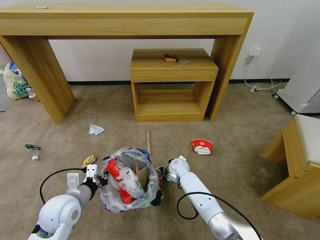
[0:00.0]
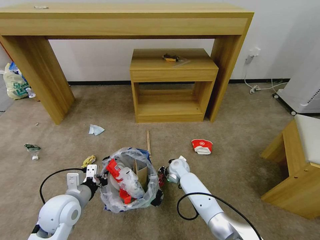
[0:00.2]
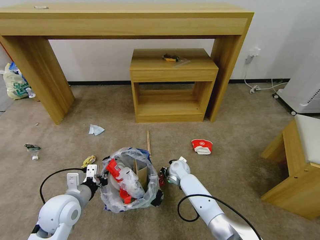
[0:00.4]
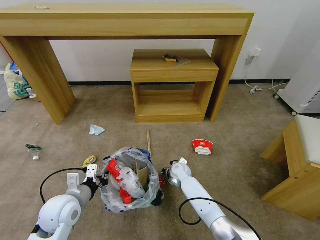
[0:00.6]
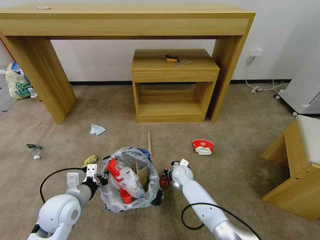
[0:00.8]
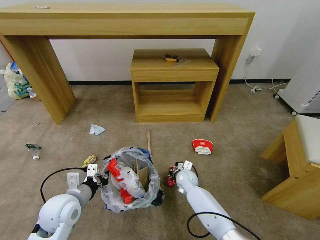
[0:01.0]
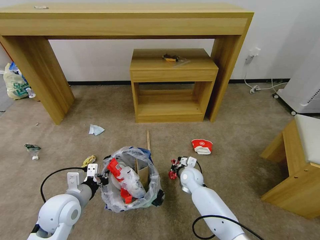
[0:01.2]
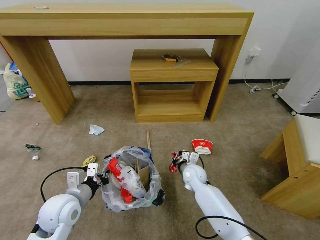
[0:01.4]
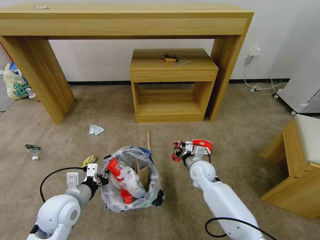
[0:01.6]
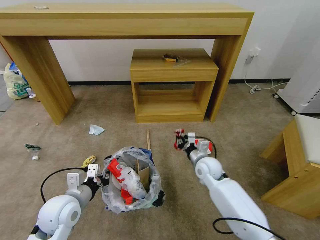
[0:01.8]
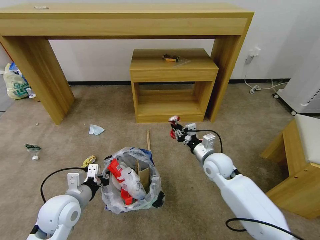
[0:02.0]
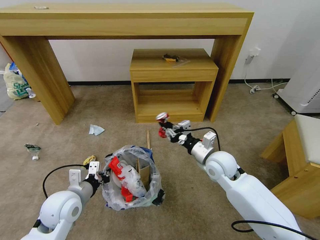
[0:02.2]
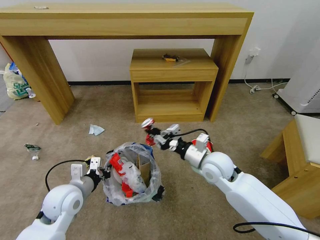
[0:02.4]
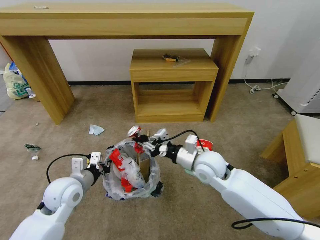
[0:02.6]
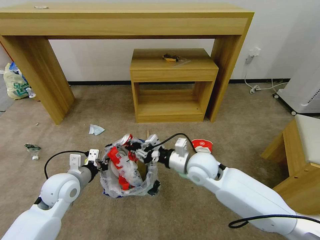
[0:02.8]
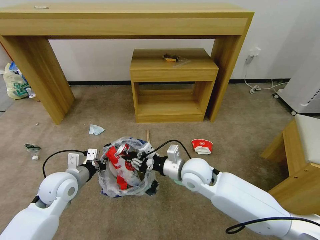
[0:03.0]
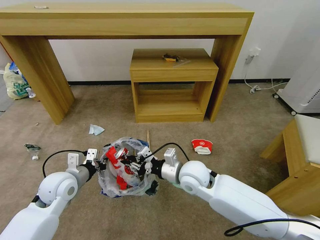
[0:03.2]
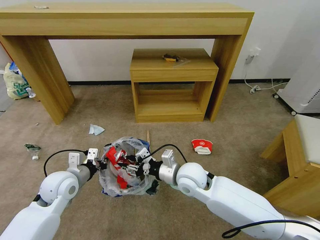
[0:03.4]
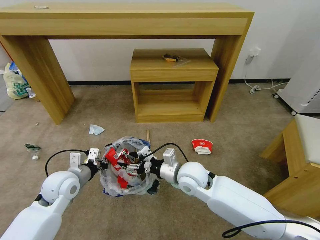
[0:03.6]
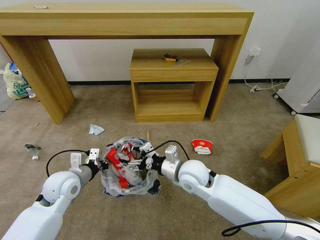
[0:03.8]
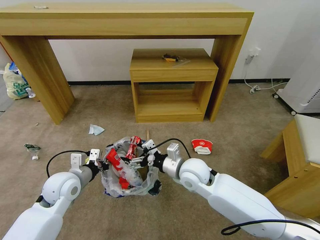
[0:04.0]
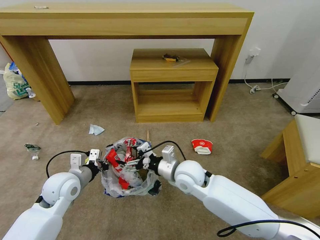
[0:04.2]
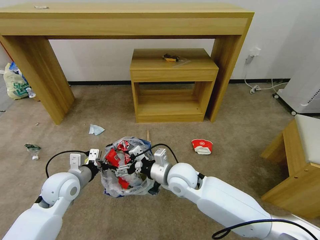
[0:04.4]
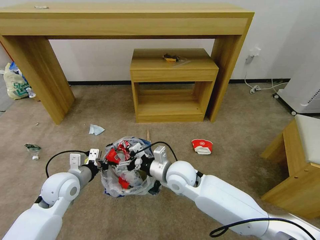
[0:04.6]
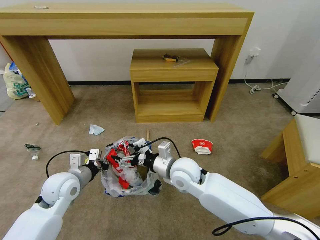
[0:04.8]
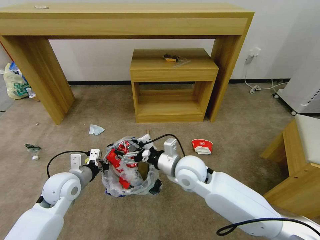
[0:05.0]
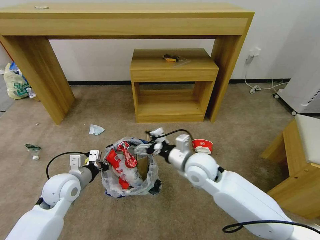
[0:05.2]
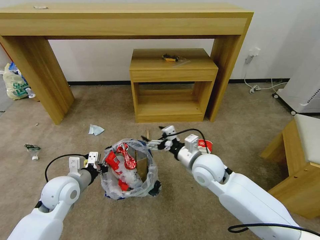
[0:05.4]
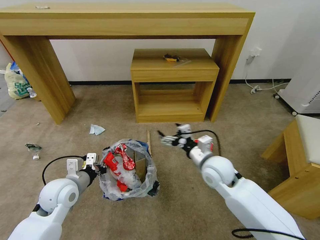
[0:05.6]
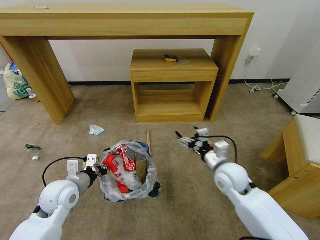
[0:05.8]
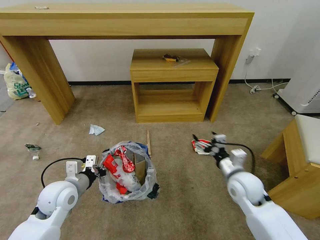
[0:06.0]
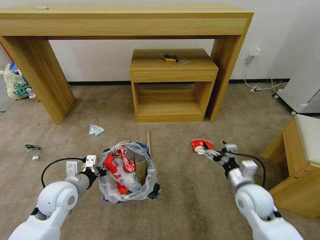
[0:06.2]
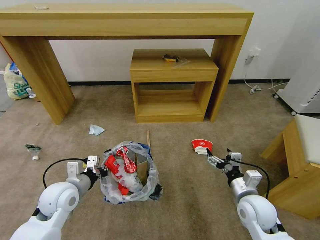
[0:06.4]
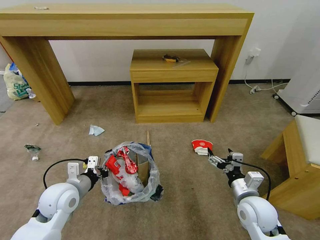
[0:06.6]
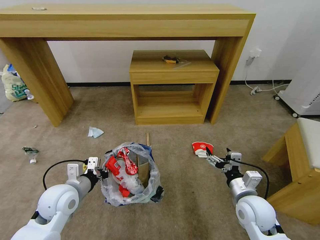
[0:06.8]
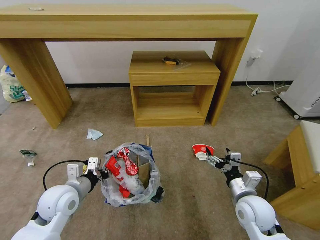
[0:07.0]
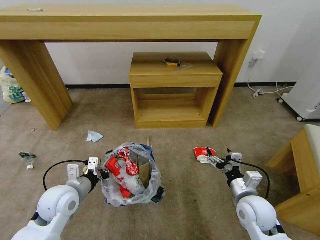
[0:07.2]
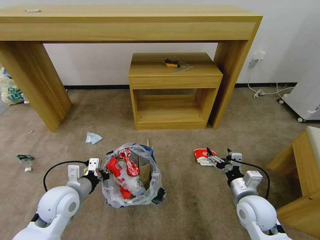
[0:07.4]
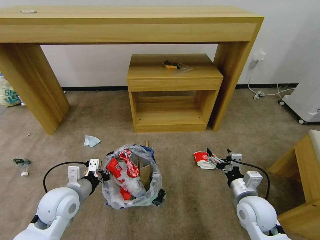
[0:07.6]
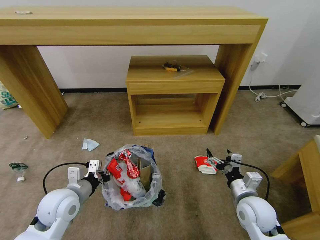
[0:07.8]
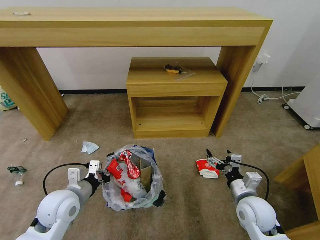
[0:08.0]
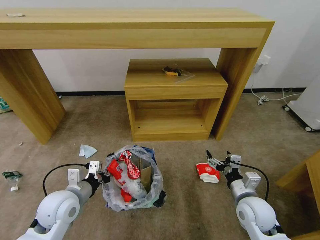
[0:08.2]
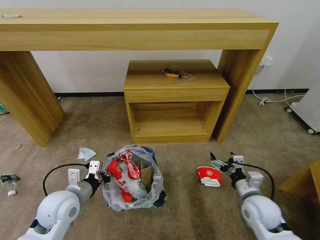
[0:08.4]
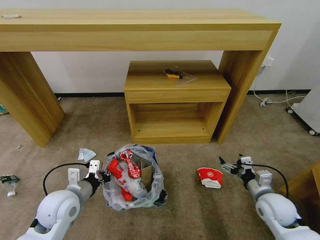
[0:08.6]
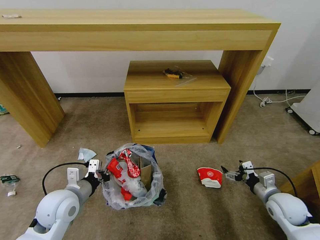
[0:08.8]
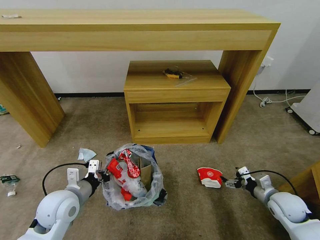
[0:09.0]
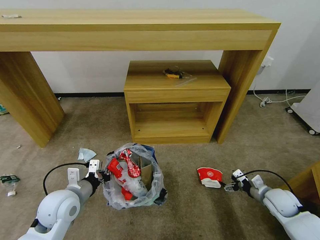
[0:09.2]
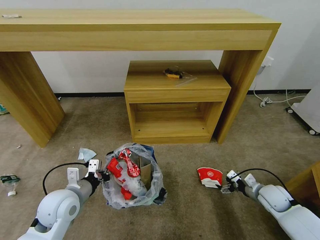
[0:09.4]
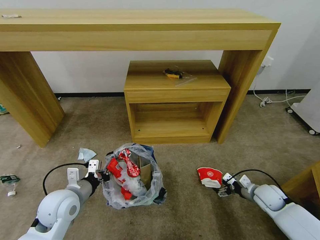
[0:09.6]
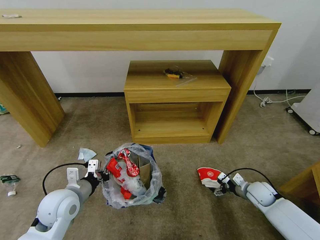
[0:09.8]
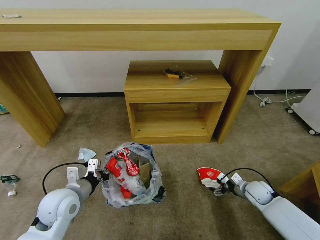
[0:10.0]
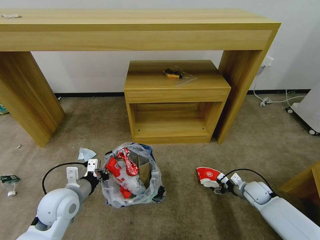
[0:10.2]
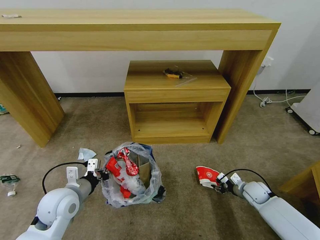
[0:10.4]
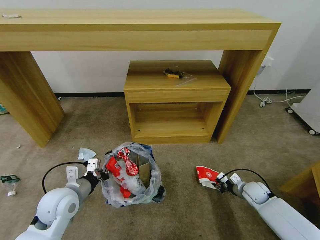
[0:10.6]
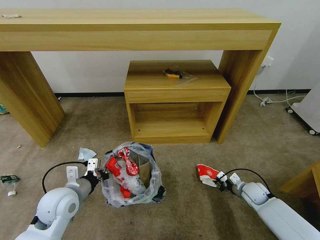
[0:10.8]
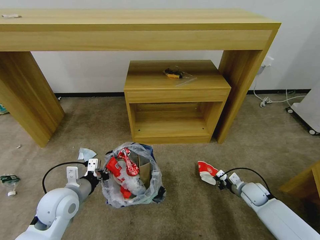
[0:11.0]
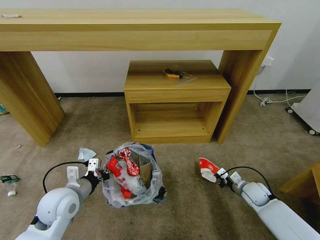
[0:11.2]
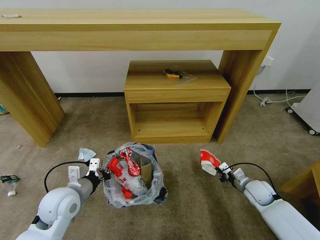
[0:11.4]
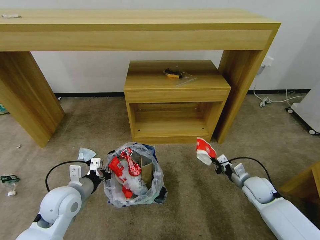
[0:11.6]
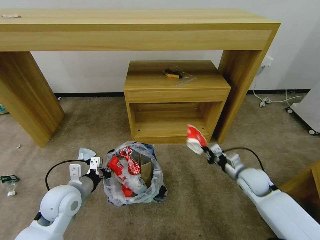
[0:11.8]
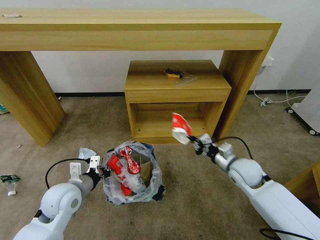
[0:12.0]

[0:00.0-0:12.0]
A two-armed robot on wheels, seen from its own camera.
Task of the whole recording: Pick up the trash bin and place the garbage on the floor into it.
0:00.0 to 0:01.6: The right gripper is displaced to the right, upward and backward by some 10 cm, and closes up.
0:01.6 to 0:03.0: The left gripper heads forward, covering roughly 5 cm. Meanwhile the right gripper travels upward, backward and to the left by about 15 cm.
0:03.0 to 0:04.4: The right gripper opens up.
0:04.4 to 0:06.0: The right gripper heads to the right, covering roughly 20 cm.
0:06.0 to 0:07.6: The right gripper travels backward by roughly 10 cm.
0:07.6 to 0:09.0: The right gripper travels to the right by some 15 cm.
0:09.0 to 0:10.4: The right gripper shifts about 10 cm downward and forward, and closes its fingers.
0:10.4 to 0:12.0: The right gripper travels upward and to the left by some 20 cm, and closes its fingers.

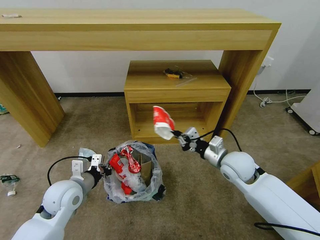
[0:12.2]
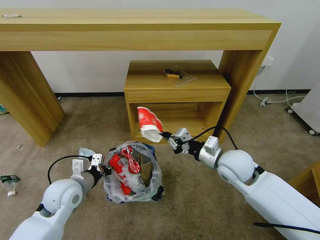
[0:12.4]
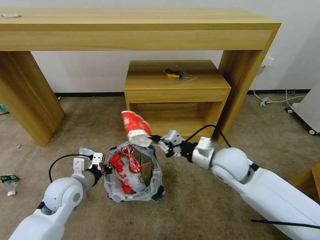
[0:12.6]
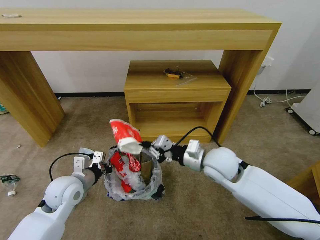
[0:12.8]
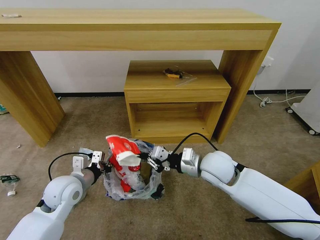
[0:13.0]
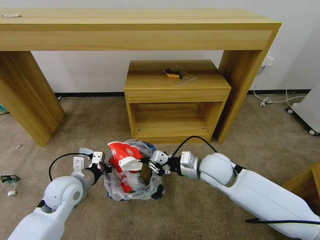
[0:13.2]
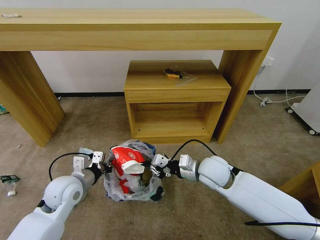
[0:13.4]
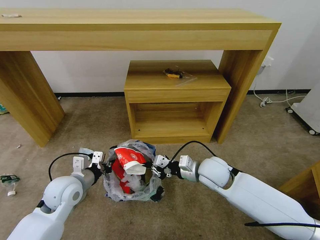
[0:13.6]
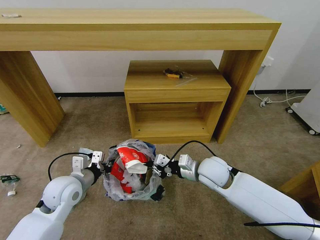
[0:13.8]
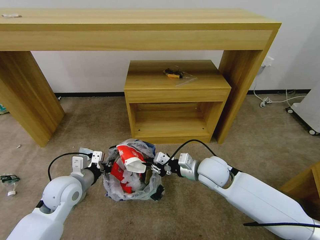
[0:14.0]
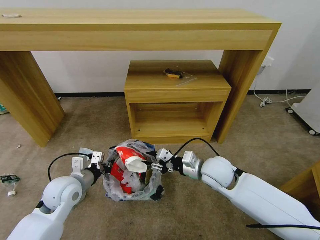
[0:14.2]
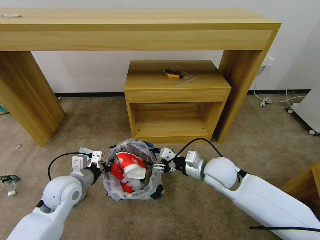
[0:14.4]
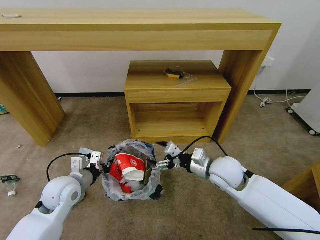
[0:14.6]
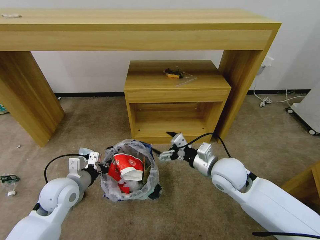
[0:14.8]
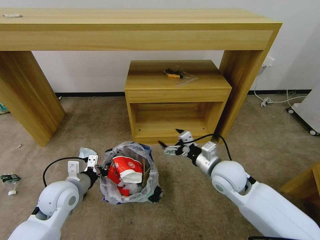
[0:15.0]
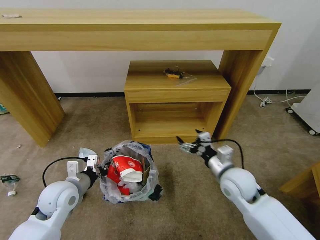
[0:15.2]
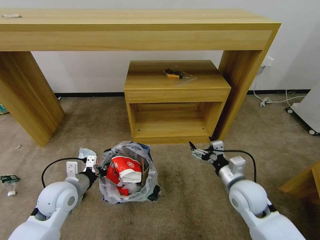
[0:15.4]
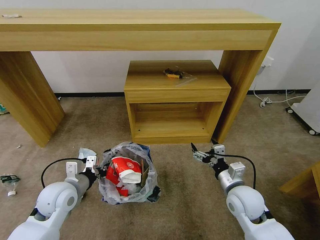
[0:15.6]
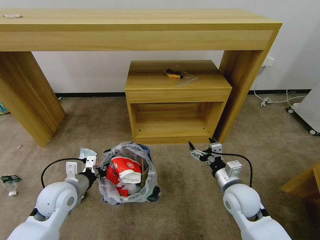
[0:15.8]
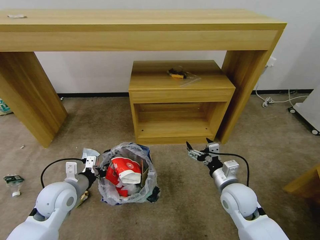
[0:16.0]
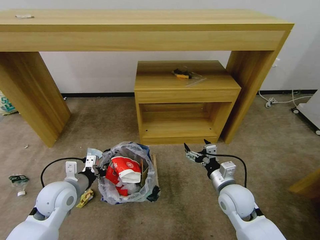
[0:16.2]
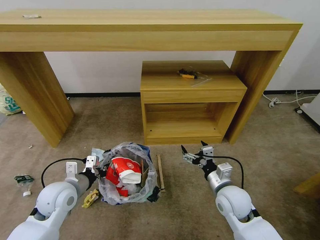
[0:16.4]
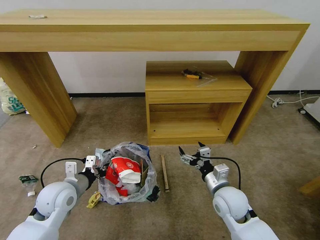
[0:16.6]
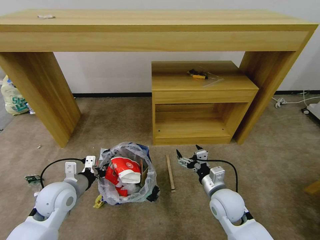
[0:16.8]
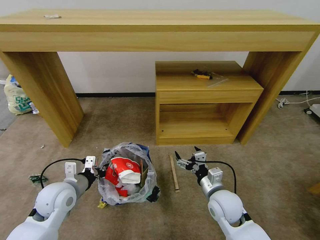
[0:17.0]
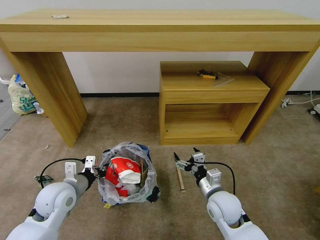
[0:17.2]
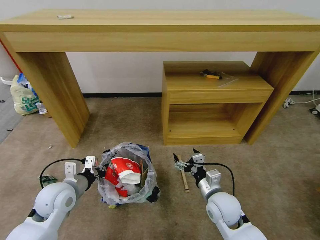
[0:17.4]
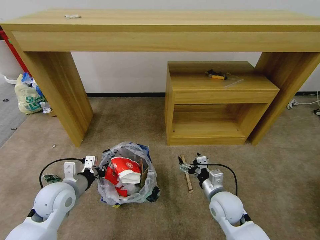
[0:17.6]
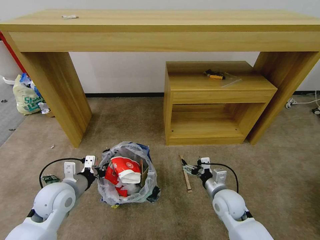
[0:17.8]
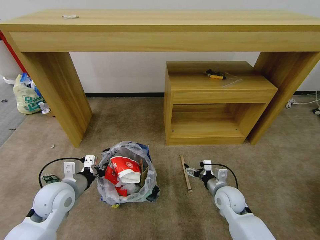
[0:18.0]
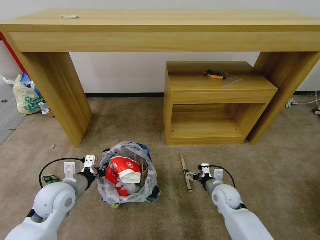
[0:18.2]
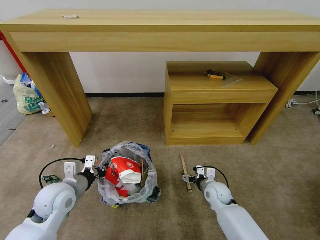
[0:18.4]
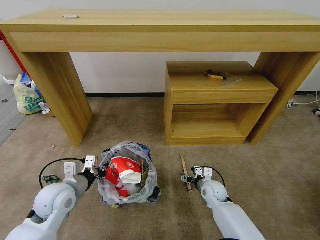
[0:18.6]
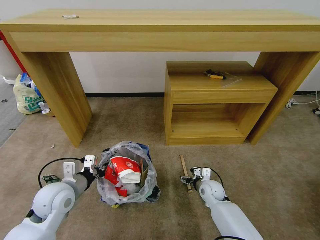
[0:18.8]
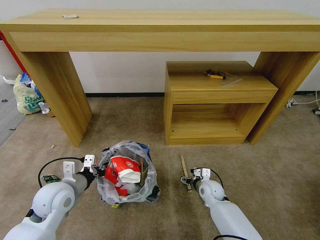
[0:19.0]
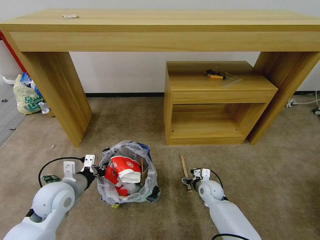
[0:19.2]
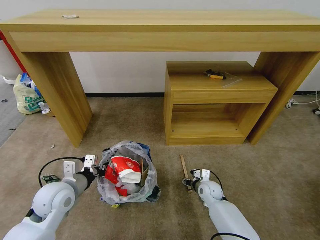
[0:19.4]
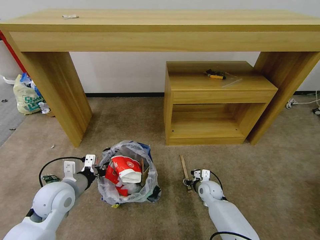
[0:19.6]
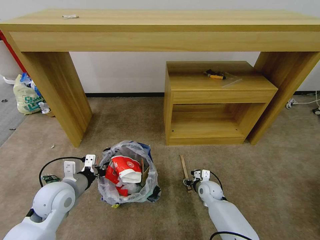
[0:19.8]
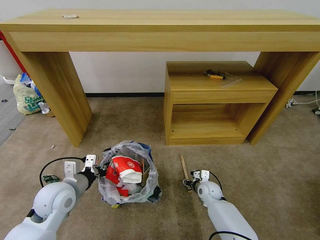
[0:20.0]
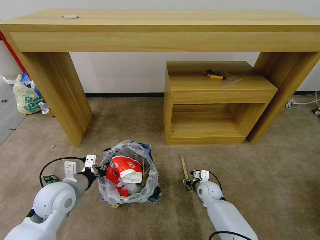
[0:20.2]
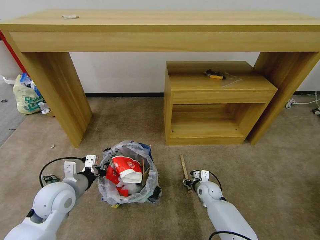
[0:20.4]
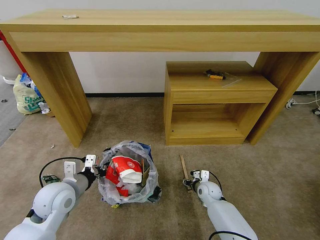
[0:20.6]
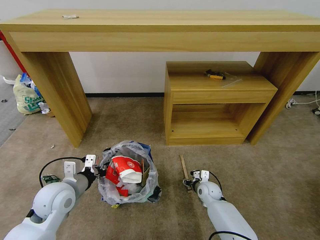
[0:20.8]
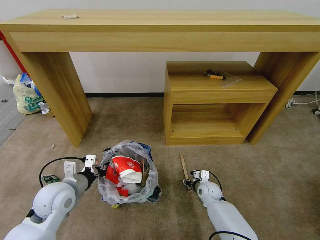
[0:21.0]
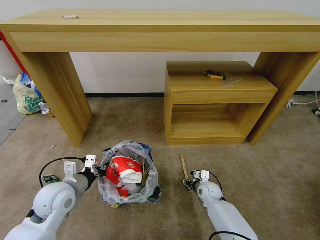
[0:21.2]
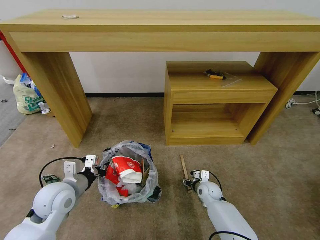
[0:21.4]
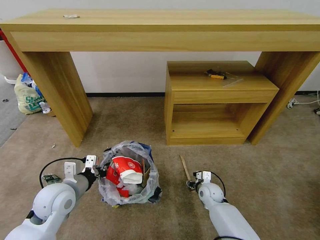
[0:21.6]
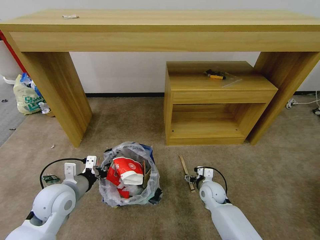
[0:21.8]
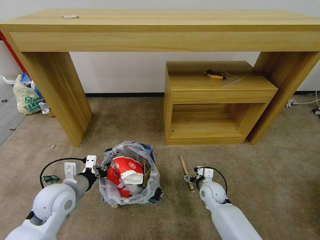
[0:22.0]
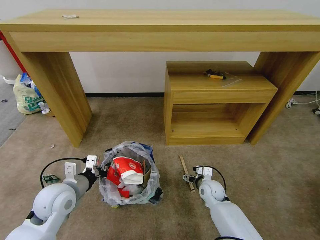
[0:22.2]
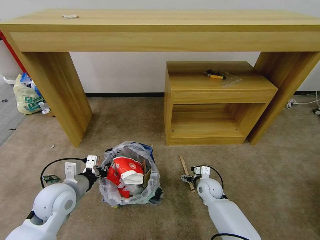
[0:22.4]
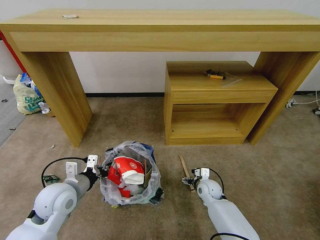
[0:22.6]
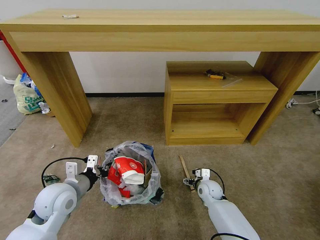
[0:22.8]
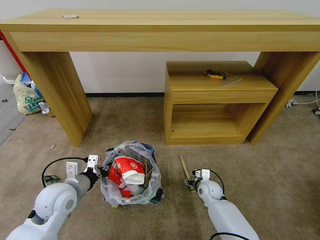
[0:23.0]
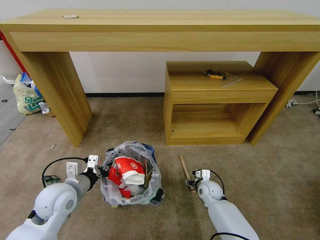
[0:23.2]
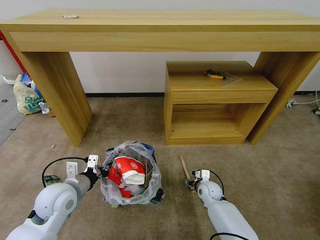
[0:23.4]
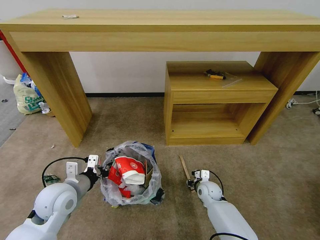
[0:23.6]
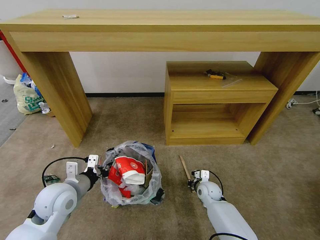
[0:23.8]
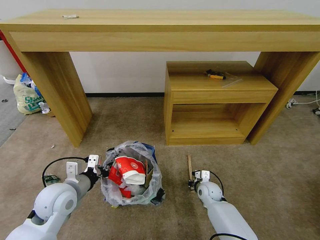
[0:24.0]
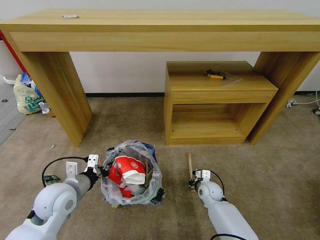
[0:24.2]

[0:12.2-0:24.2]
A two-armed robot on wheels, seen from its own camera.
Task of the whole recording: Pick up the trash bin and place the garbage on the floor into it.
0:12.2 to 0:13.8: The right gripper goes roughly 5 cm to the left.
0:13.8 to 0:15.2: The right gripper moves to the right, some 5 cm, and opens up.
0:15.2 to 0:16.6: The right gripper moves downward, roughly 5 cm.
0:16.6 to 0:18.2: The right gripper shifts roughly 10 cm downward and forward.
0:18.2 to 0:19.8: The right gripper shifts some 5 cm downward, and closes up.
0:19.8 to 0:21.2: Both grippers stay put.
0:21.2 to 0:22.6: The right gripper opens.
0:22.6 to 0:24.2: The right gripper closes.
